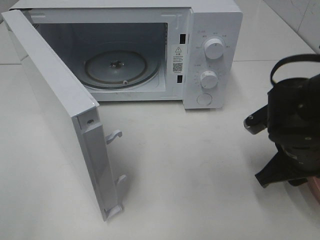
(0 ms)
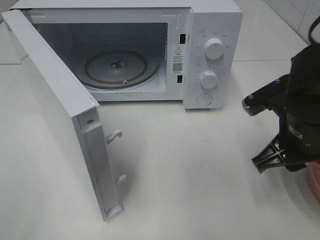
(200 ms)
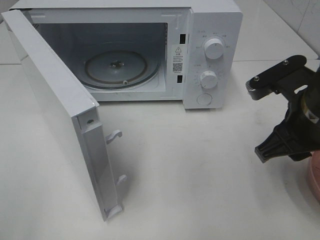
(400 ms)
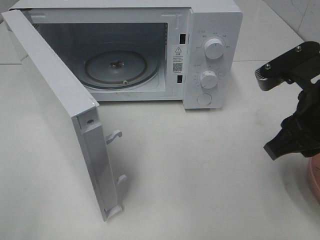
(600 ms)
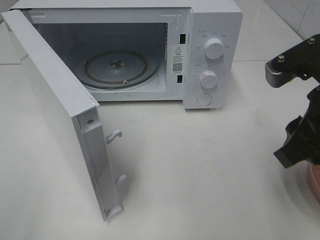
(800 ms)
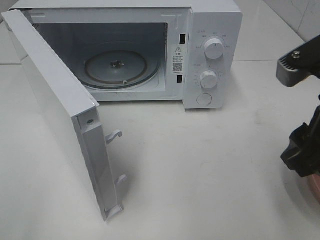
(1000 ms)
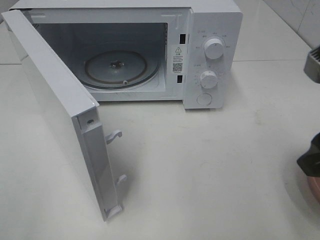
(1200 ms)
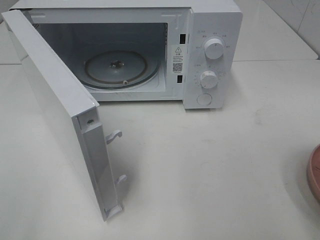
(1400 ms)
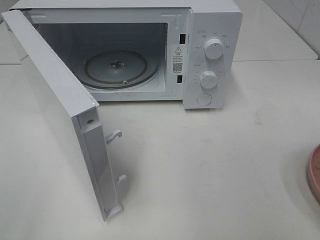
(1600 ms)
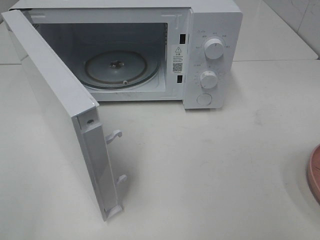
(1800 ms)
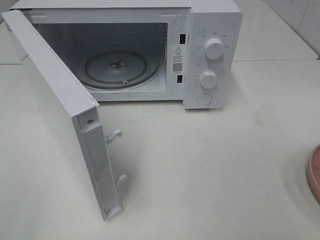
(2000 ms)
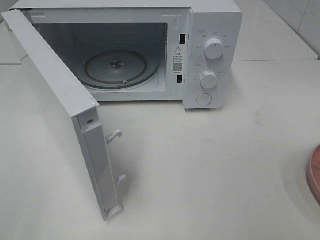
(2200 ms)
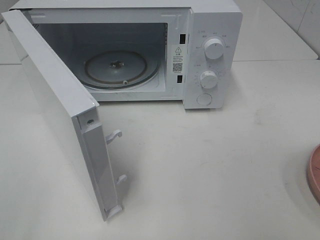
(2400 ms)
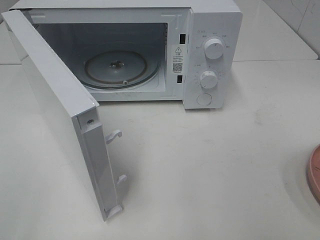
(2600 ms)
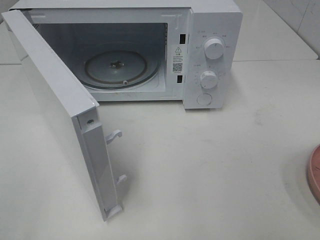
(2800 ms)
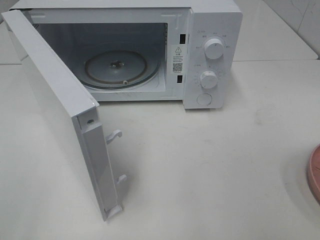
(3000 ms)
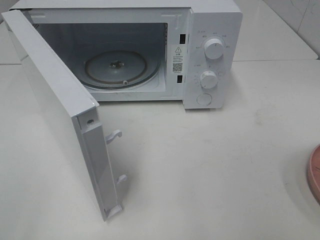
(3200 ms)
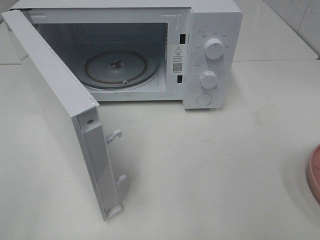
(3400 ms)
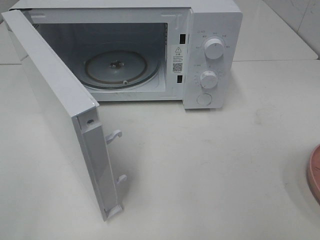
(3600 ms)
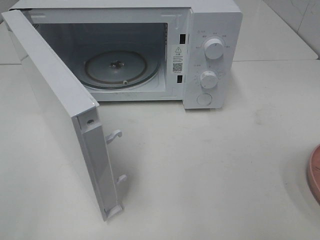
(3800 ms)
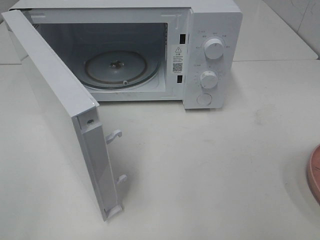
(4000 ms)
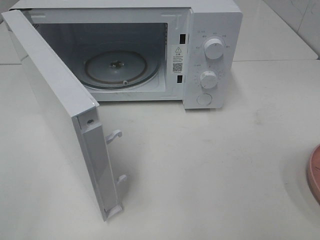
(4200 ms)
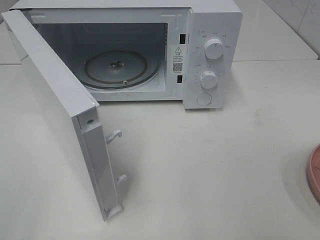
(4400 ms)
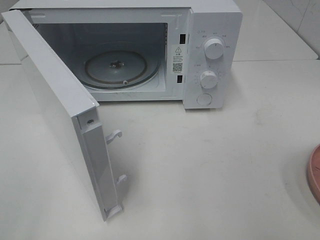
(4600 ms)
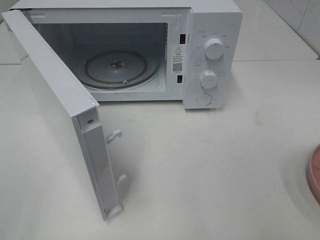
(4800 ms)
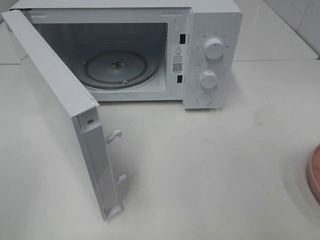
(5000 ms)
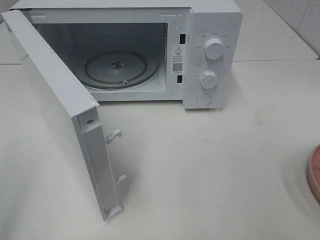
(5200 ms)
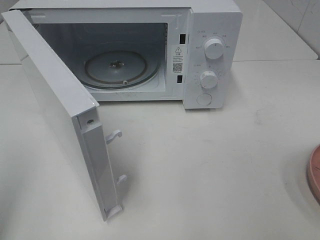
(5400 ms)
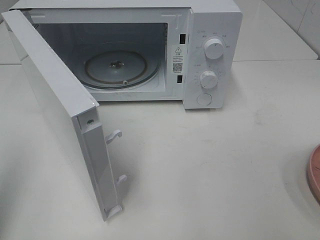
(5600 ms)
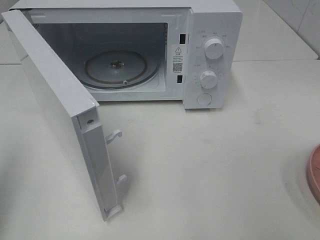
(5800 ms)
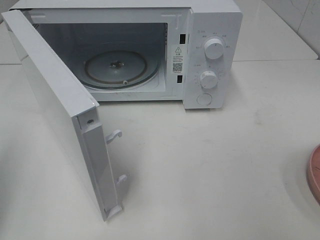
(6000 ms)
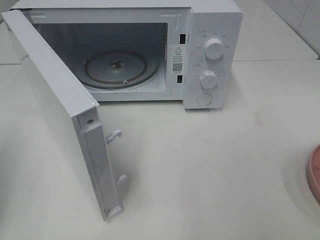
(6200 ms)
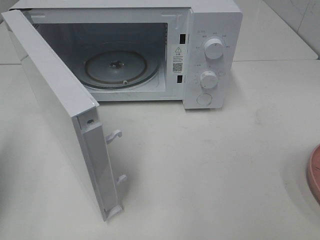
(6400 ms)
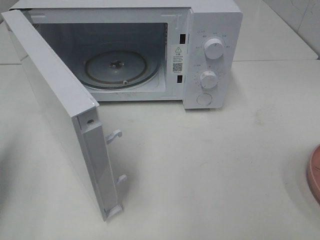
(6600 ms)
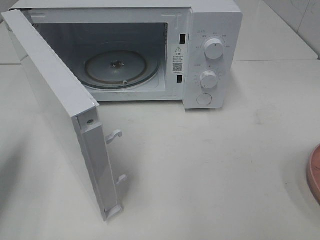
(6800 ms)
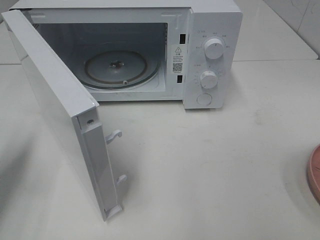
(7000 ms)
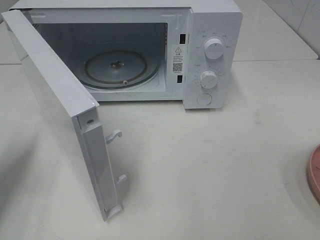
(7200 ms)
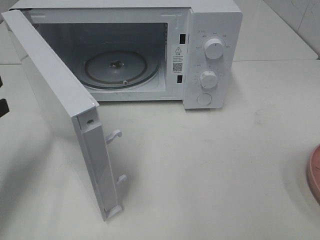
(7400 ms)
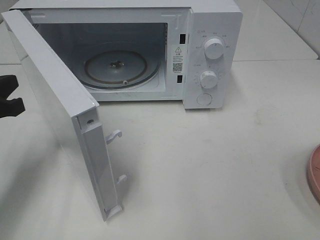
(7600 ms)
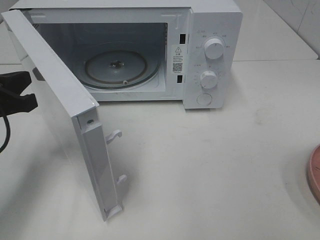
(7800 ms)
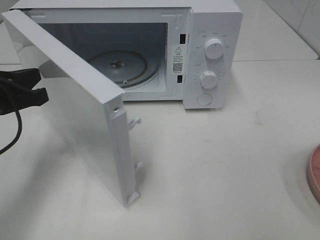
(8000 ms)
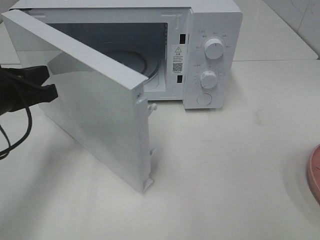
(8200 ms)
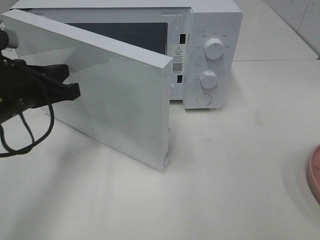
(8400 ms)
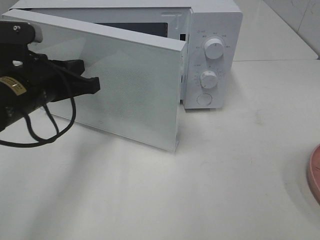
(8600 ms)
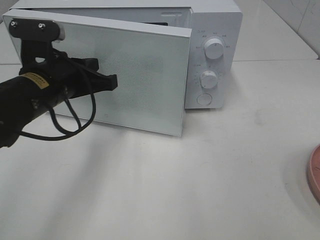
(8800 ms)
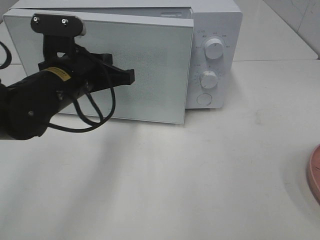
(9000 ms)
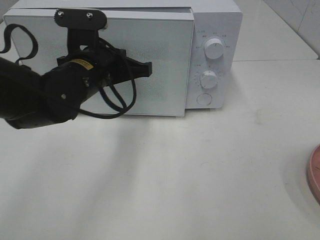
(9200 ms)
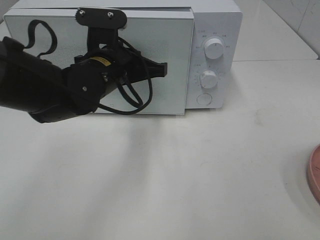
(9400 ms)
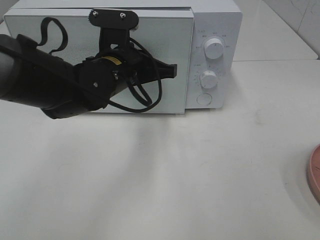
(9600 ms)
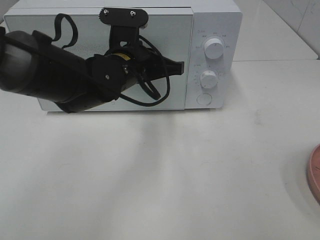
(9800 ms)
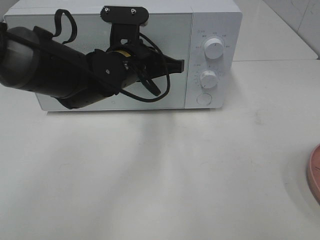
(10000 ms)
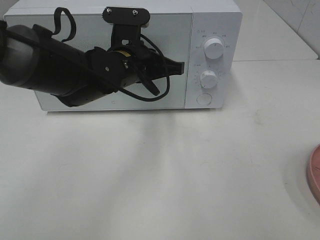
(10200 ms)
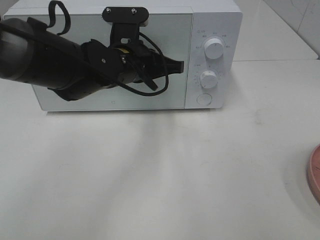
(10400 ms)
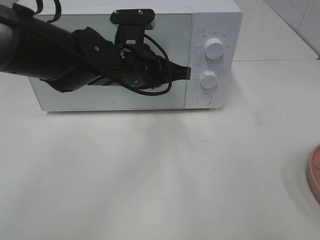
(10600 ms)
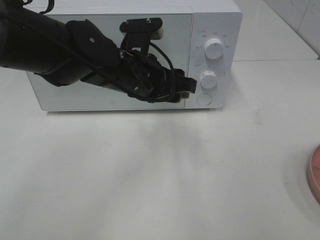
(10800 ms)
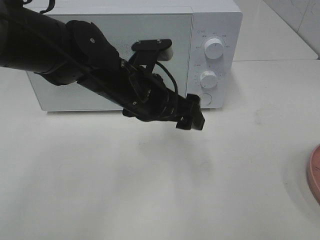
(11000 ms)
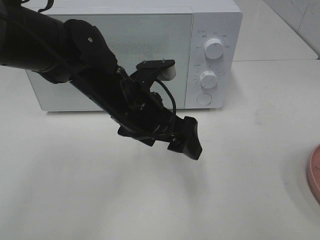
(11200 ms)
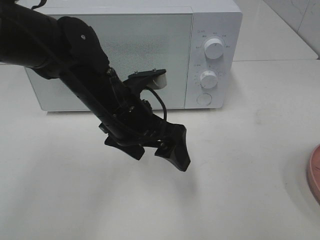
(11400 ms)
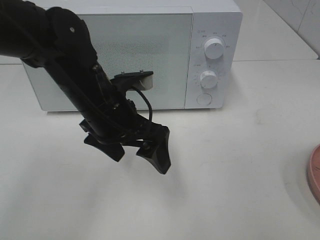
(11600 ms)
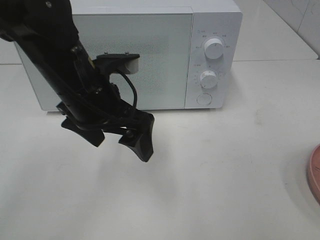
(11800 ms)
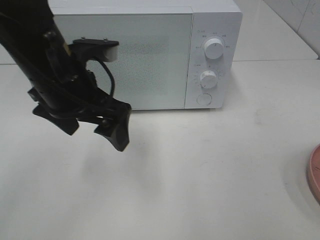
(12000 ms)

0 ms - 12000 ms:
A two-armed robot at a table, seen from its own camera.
Task of the whole recording: Heat the burger.
Step, 200 ms - 10800 ms: Left hand: close the microwave door.
0 ms - 1600 ms: The right gripper is displaced upward and backward by approximately 25 cm, and opens up.
3000 ms - 4400 ms: Both grippers stay put.
6000 ms - 7600 ms: The left gripper moves forward, downward and to the right, some 15 cm.
7600 ms - 9000 ms: The left gripper goes roughly 15 cm to the right.
9000 ms - 10400 ms: The left gripper shifts approximately 10 cm to the right.
10400 ms - 12000 ms: The left gripper moves to the left, backward and upward, about 10 cm, and opens.

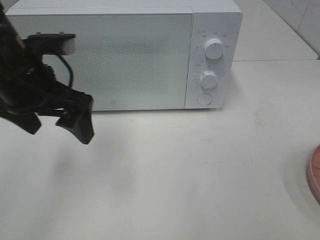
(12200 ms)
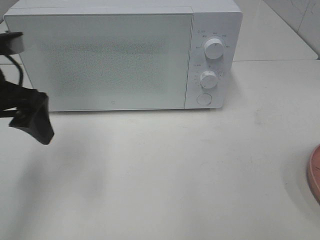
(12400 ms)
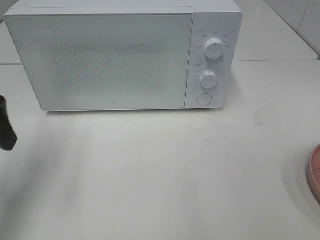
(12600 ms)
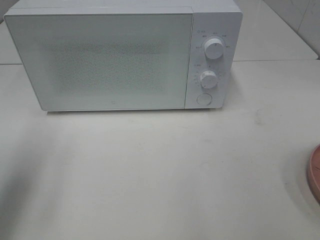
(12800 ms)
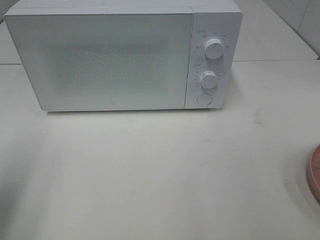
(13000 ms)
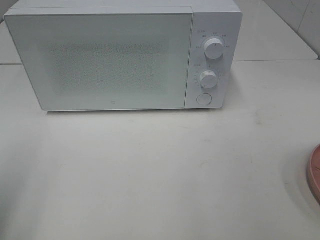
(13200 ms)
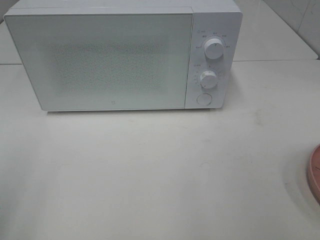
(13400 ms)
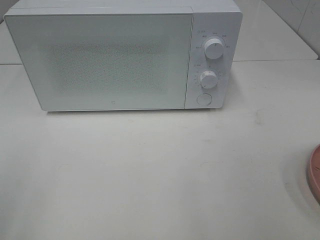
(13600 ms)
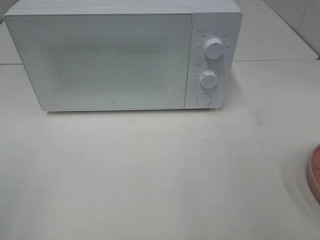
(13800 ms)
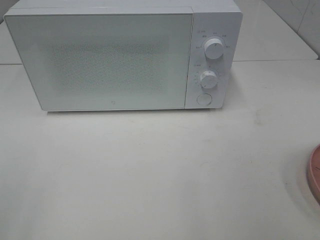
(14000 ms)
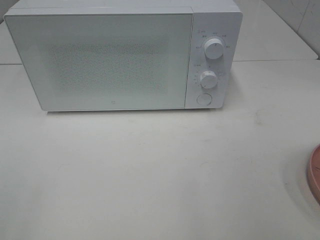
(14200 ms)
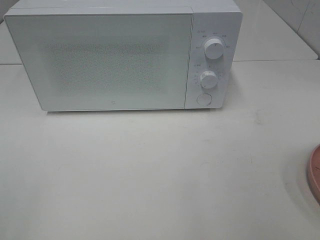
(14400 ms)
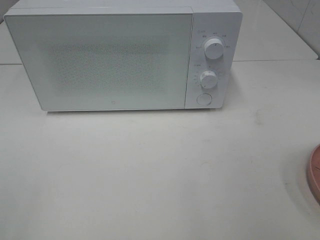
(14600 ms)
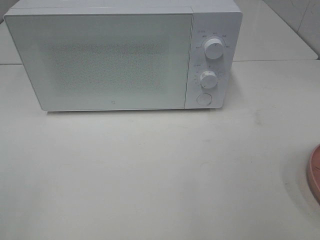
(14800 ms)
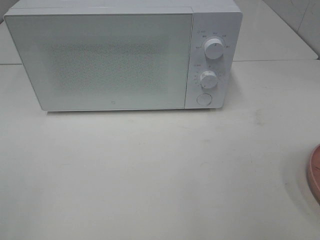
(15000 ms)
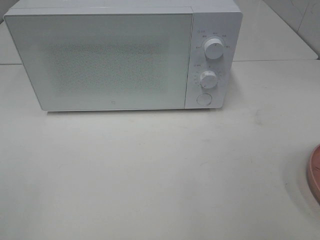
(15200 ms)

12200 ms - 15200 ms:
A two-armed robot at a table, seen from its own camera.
Task of the whole recording: Heat the burger.
12200 ms - 13800 ms: The left gripper shifts approximately 30 cm backward and to the left.

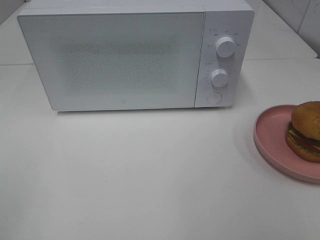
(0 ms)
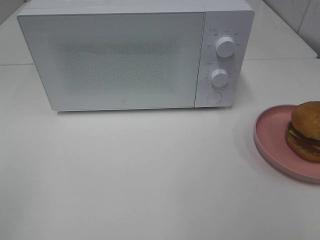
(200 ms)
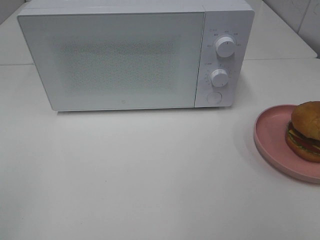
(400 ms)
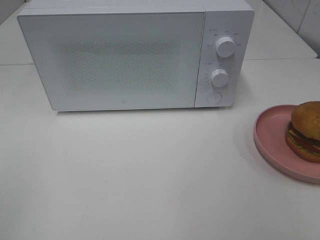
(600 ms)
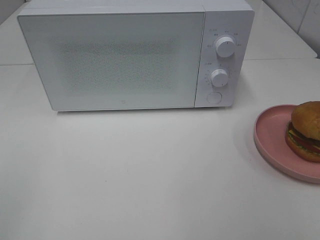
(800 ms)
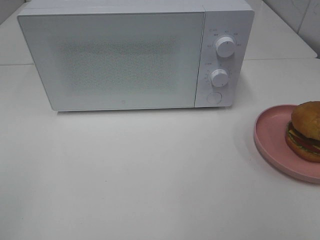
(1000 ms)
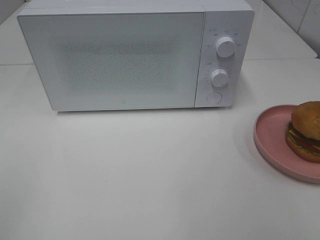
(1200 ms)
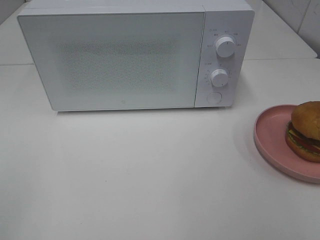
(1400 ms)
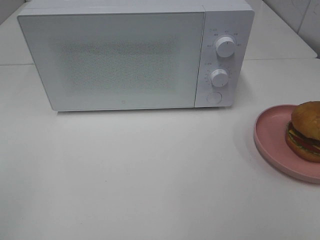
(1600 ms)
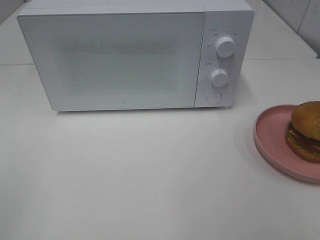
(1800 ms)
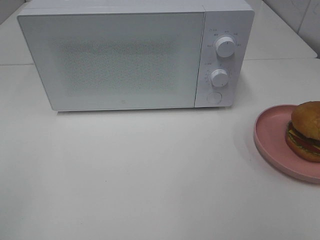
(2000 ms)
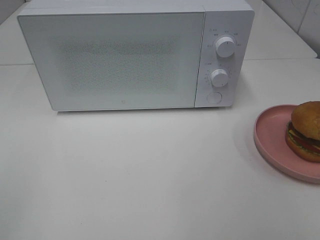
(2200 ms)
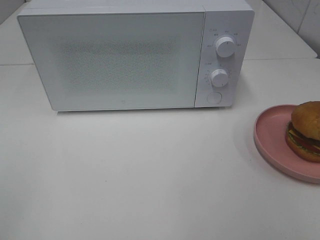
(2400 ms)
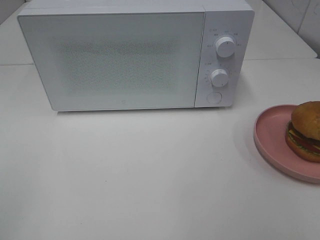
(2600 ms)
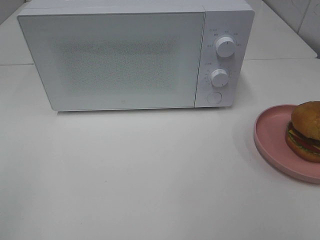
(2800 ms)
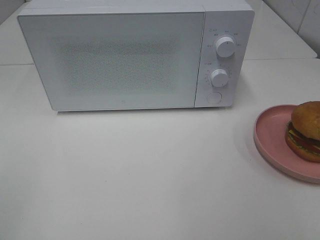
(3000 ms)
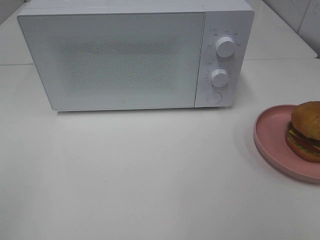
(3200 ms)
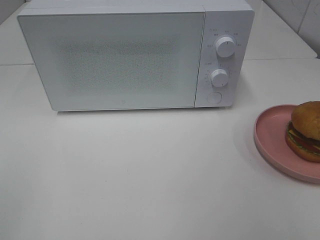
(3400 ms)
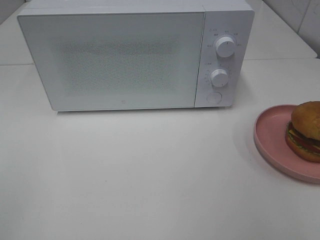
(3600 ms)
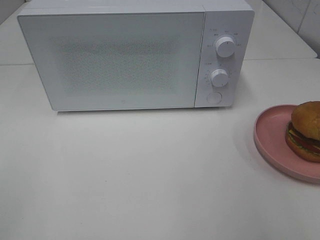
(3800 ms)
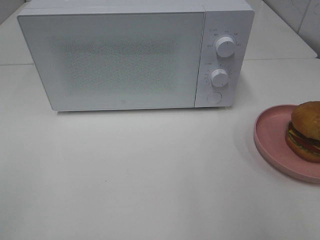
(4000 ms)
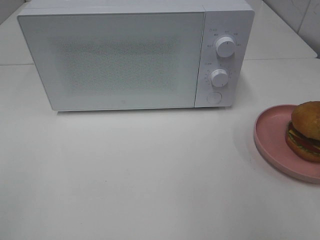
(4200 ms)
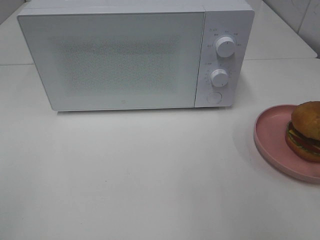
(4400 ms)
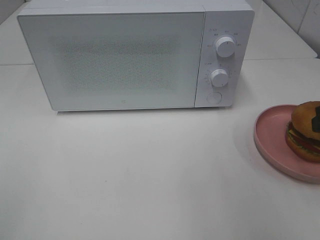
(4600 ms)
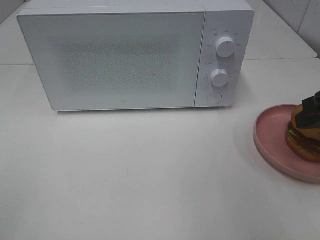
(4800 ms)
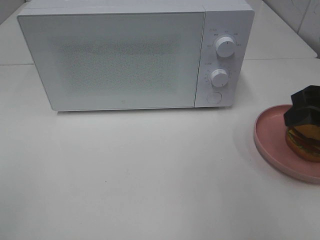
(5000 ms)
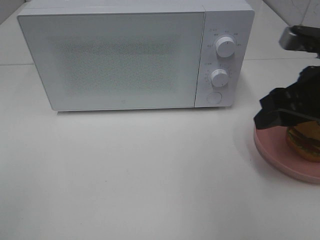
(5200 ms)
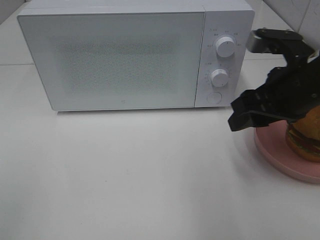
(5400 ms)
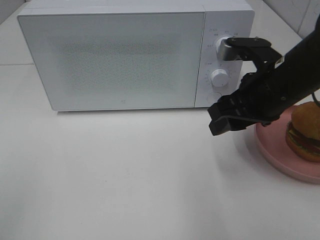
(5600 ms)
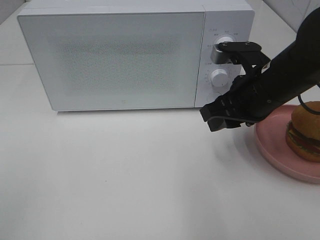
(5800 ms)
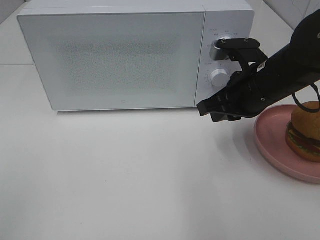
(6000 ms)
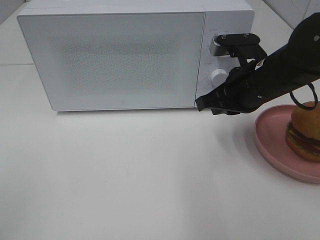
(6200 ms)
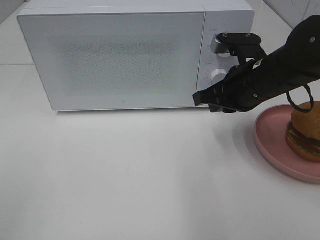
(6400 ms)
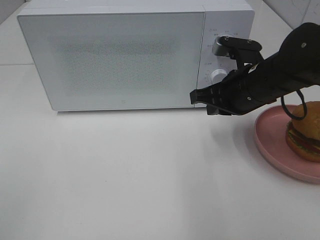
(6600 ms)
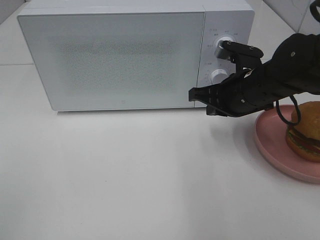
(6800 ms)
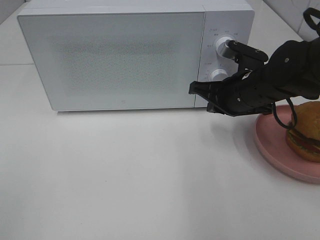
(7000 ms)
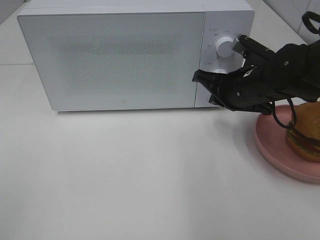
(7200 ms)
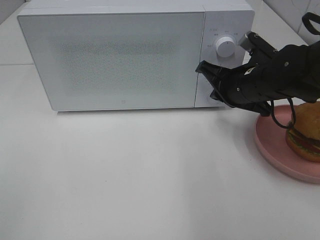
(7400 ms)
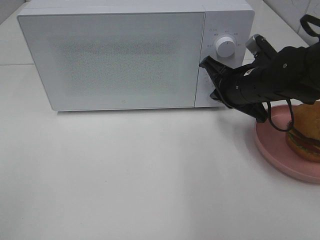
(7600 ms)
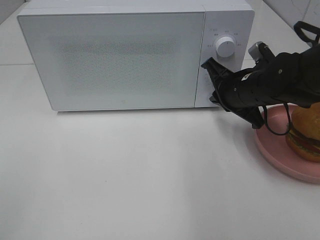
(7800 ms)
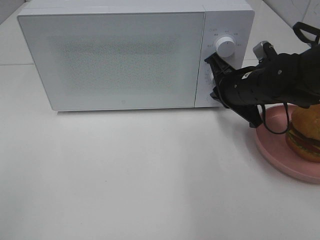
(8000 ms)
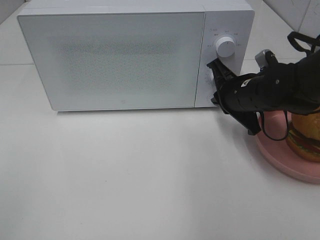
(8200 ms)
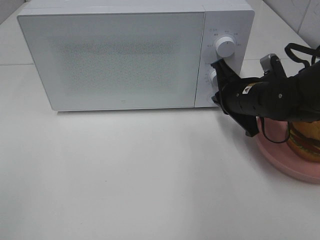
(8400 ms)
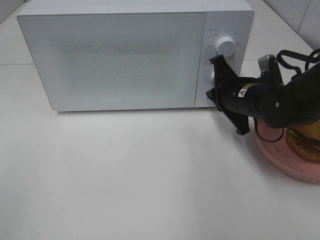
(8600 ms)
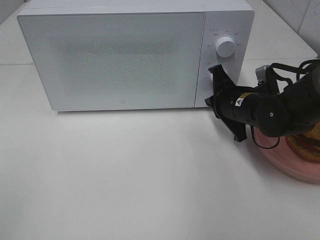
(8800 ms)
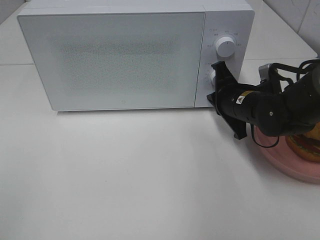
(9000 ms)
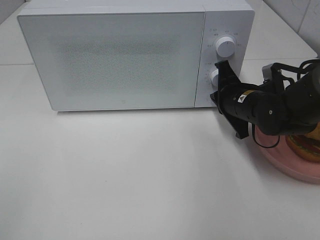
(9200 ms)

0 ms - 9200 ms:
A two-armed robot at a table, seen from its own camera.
Task of the whole recording: Heat the burger.
0 ms - 3000 ms: Neither gripper changes place.
4600 ms - 6200 ms: The right gripper is displaced to the left, forward and downward by some 15 cm, and closes up.
